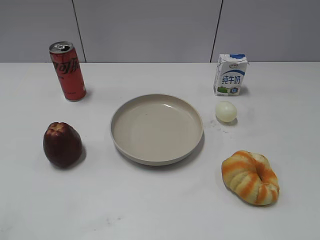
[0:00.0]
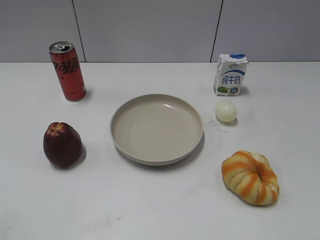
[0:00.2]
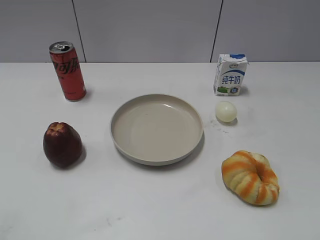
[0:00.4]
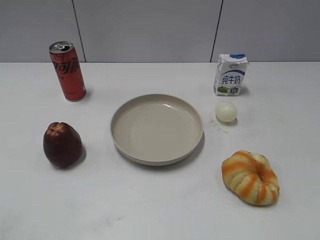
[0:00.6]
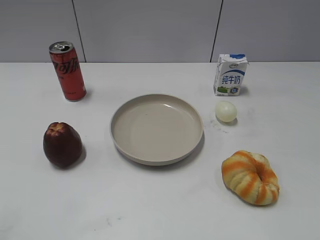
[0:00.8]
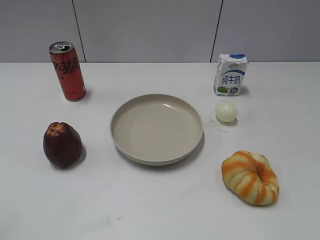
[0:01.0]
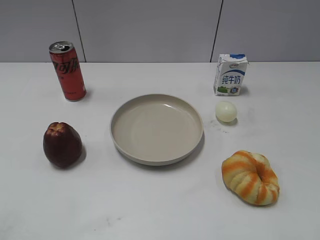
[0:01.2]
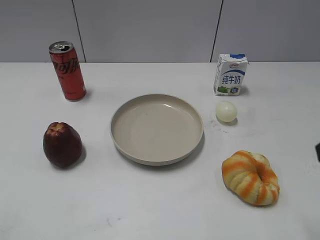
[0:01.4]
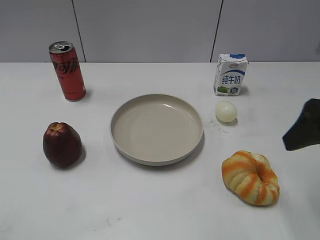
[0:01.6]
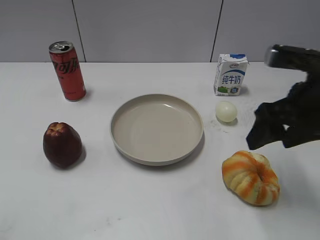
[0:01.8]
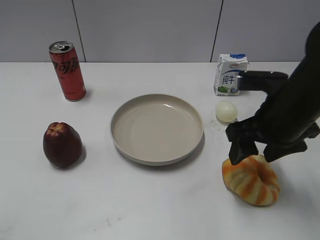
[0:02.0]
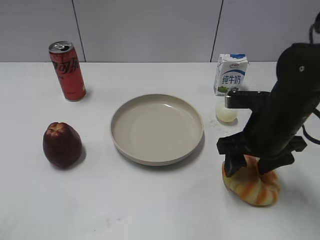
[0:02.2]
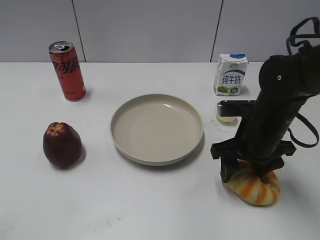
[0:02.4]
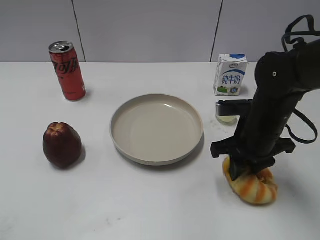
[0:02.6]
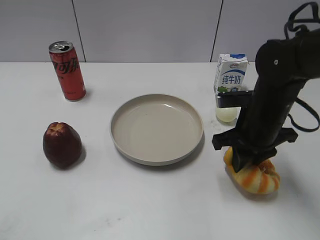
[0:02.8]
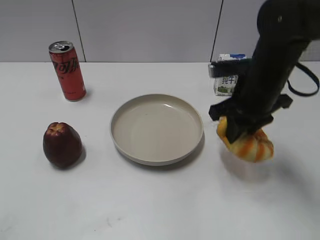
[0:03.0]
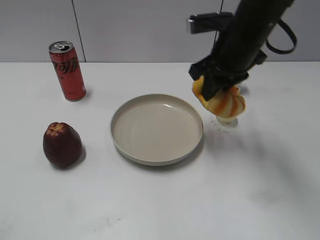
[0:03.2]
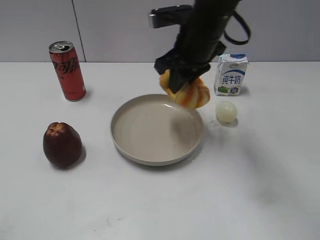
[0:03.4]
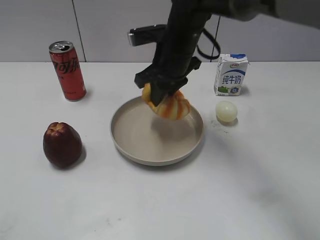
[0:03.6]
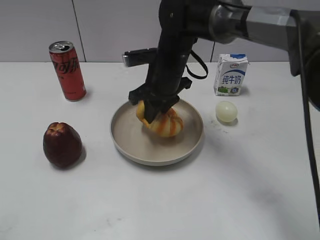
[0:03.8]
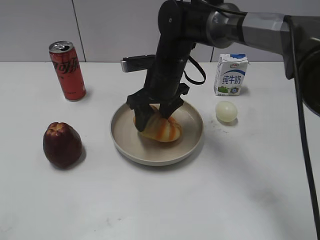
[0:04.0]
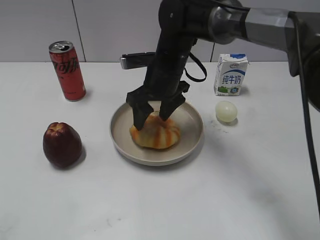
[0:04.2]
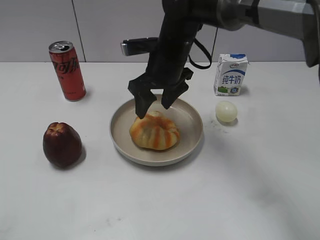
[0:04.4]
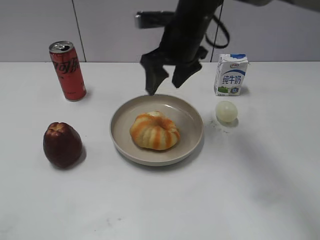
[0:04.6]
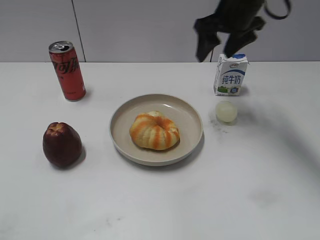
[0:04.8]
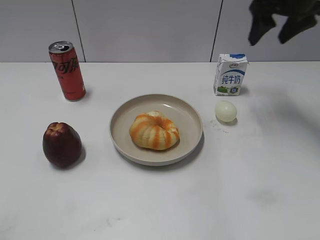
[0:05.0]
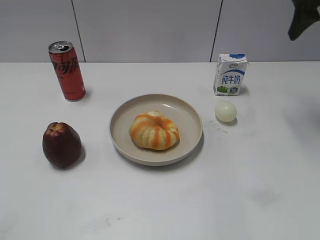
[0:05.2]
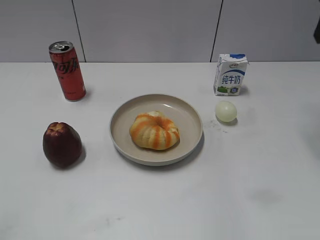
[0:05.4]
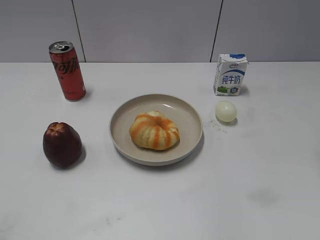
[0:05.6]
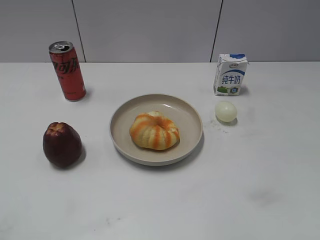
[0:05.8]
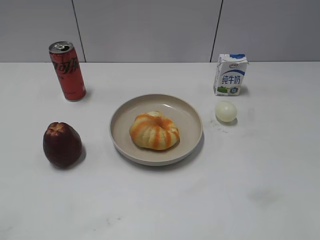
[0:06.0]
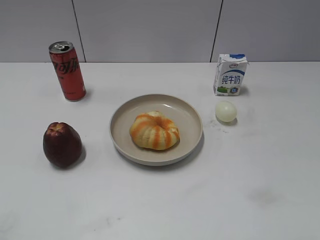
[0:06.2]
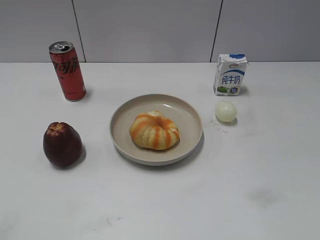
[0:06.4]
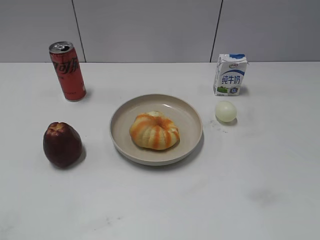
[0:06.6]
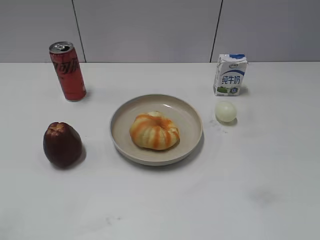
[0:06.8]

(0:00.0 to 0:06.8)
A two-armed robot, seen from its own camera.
Step, 0:00.0 - 0:02.6: Grasp the round bread with right gripper.
Step, 0:02.8 - 0:04.4: Place the round bread on the plate with right gripper.
0:01.4 - 0:02.8: The right gripper travels downward, forward and to the left by some 20 cm, and closes.
0:02.8 - 0:04.0: The right gripper heads to the left and forward, covering roughly 20 cm, and opens.
0:04.0 - 0:05.4: The right gripper travels to the right and upward by some 35 cm.
